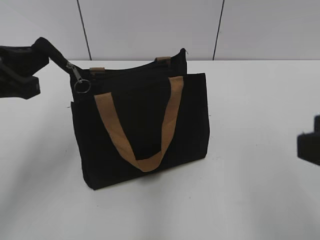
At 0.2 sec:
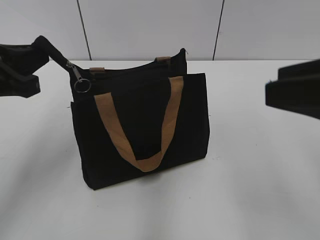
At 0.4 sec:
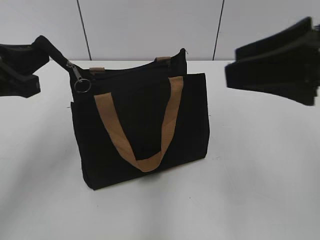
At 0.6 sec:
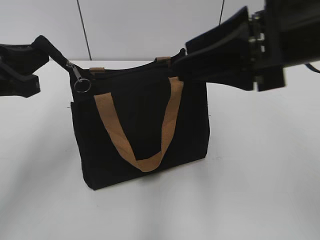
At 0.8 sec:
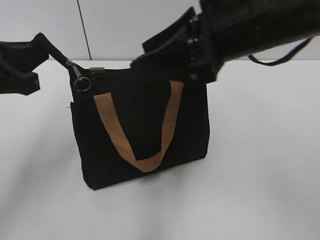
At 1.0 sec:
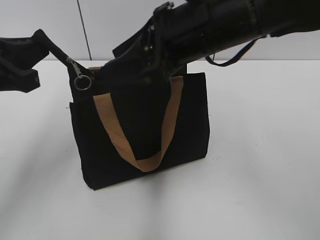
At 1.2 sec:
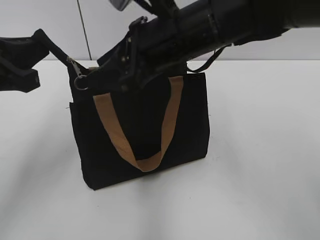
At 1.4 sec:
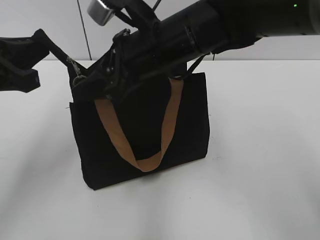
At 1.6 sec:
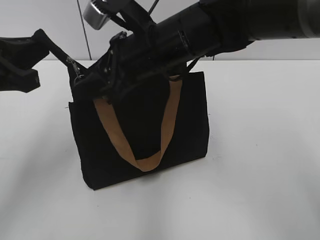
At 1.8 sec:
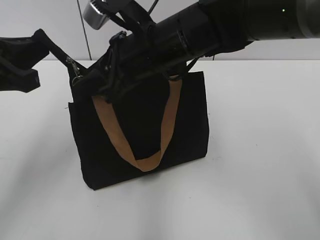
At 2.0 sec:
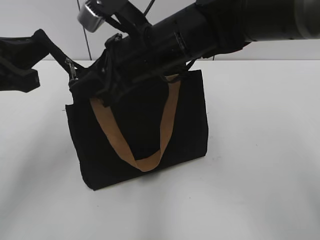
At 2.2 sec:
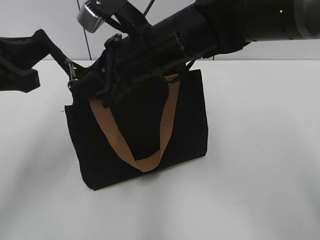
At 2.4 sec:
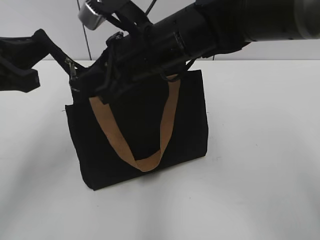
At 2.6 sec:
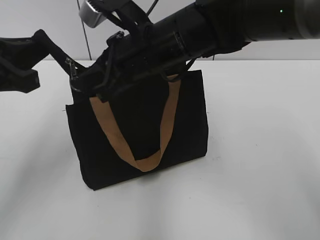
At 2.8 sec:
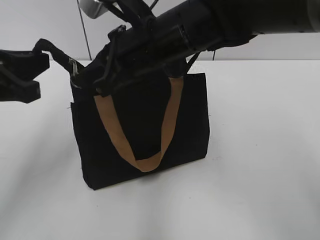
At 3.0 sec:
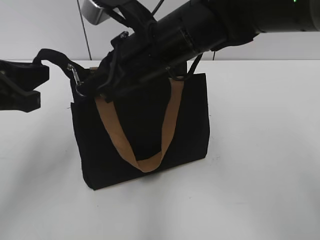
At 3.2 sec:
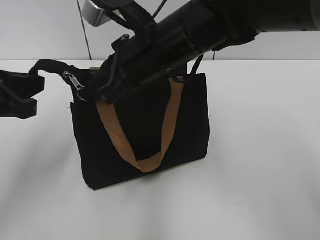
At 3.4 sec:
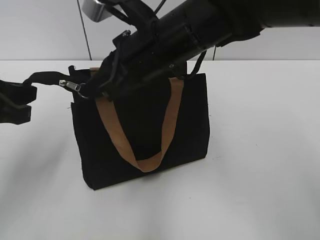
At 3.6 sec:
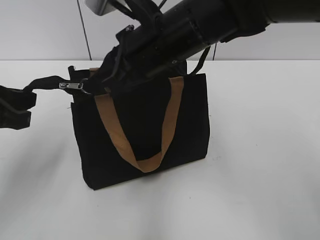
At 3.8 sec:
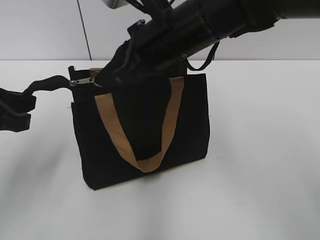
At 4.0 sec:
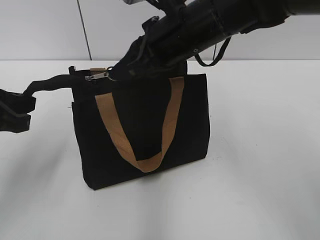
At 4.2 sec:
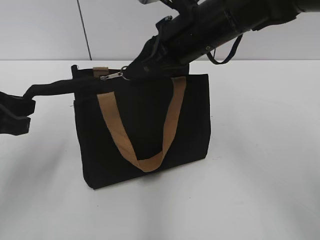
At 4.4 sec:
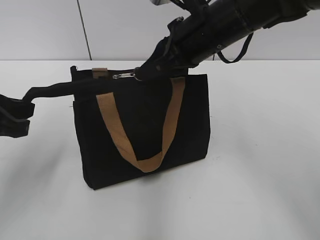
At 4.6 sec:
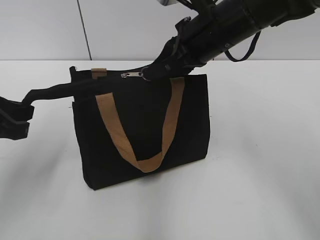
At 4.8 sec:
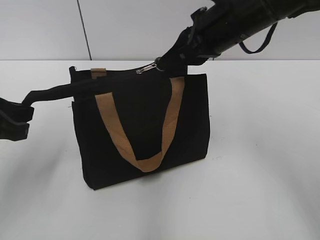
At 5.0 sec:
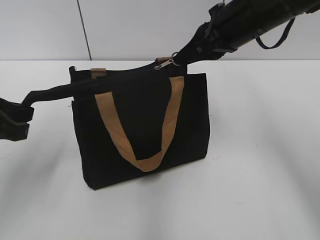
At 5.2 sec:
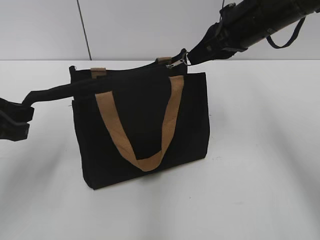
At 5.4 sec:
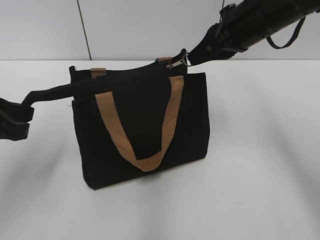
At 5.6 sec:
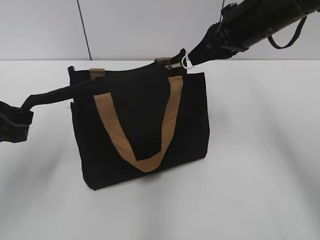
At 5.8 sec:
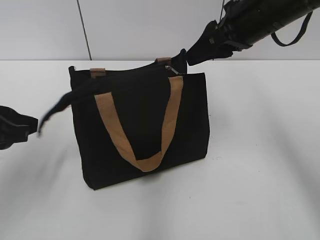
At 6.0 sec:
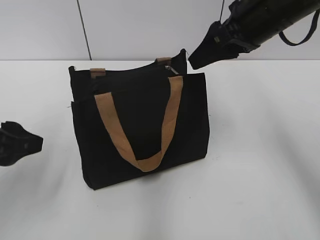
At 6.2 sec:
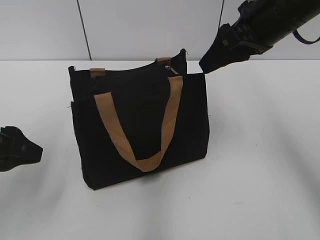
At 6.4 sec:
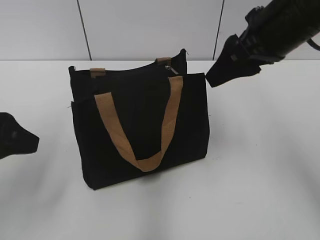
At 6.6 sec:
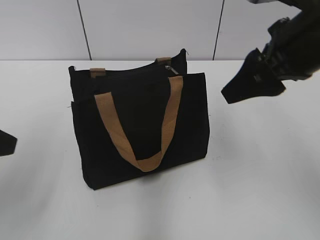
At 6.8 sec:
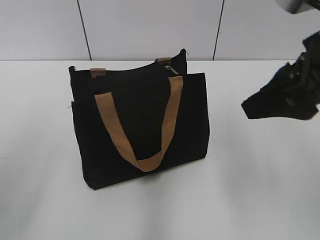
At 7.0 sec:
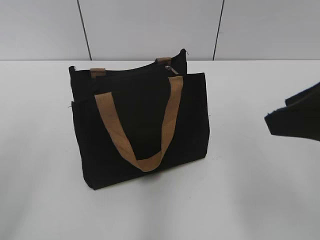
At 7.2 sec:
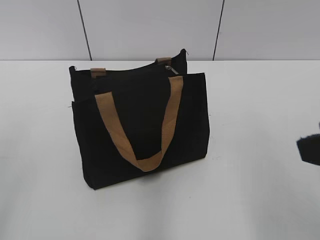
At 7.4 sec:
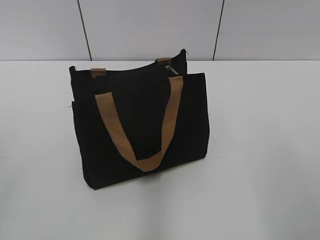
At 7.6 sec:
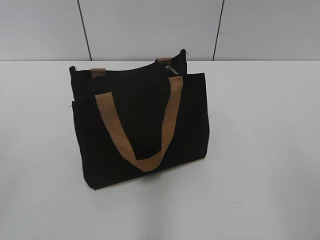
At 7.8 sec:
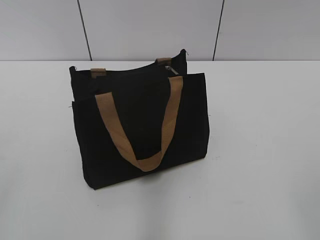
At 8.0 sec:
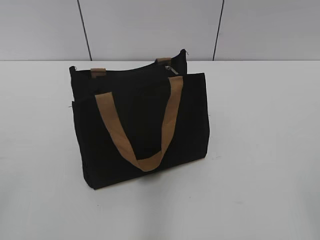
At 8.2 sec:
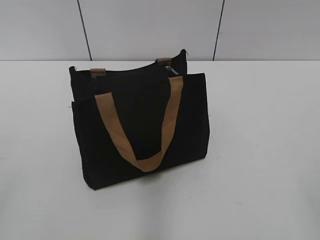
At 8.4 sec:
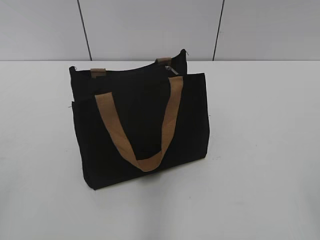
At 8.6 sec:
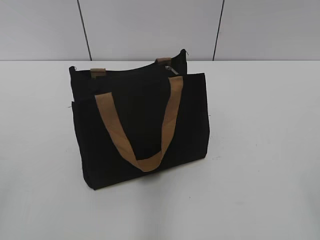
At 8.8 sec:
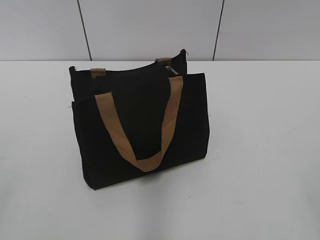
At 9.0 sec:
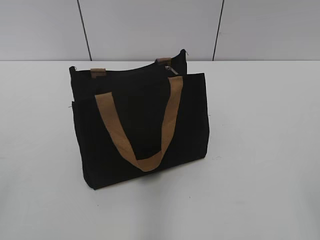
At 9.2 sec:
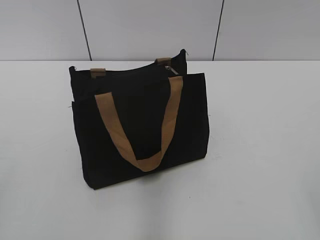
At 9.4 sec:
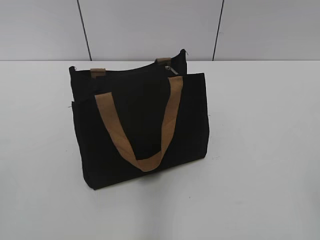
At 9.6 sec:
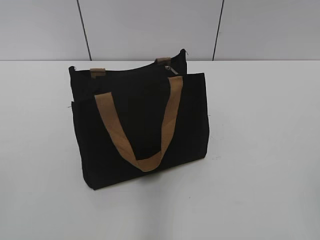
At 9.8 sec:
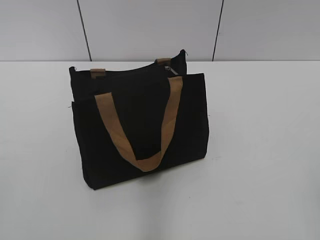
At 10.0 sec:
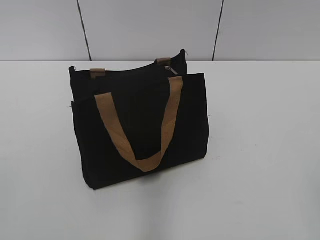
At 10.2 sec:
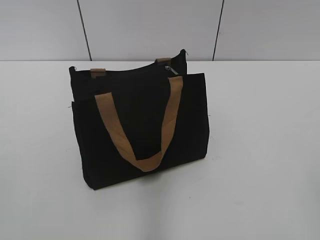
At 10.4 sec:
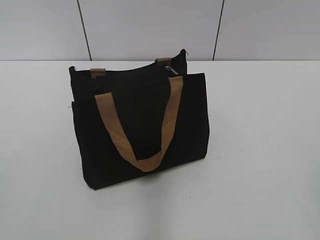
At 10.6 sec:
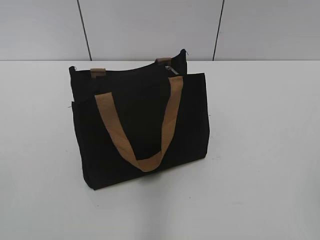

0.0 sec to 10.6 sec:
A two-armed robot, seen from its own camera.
Step, 0.0 sec to 5.6 sec: Zip up the bag with your right hand.
Step, 5.8 sec to 6.2 sec: Grab the zipper with your left hand.
0.0 sec to 1.6 sec: The right gripper moves forward and to the left, about 35 cm.
1.6 sec to 3.0 sec: The right gripper closes up.
3.0 sec to 4.6 sec: The right gripper travels to the right by approximately 10 cm.
4.6 sec to 6.0 sec: The left gripper opens up. Meanwhile the right gripper shifts roughly 5 cm to the right, and opens up.
6.0 sec to 7.6 sec: The right gripper goes some 30 cm backward, while the left gripper shifts some 20 cm backward, upward and to the left.
